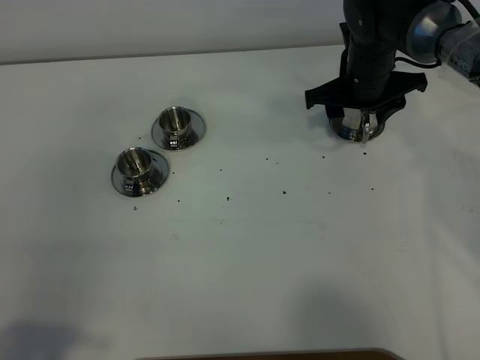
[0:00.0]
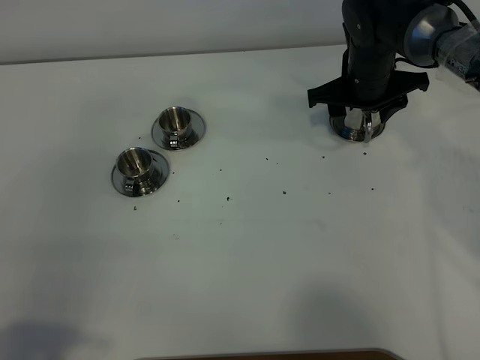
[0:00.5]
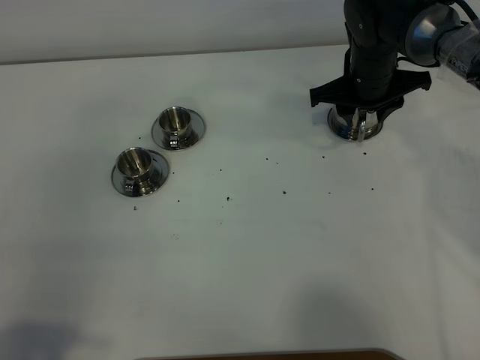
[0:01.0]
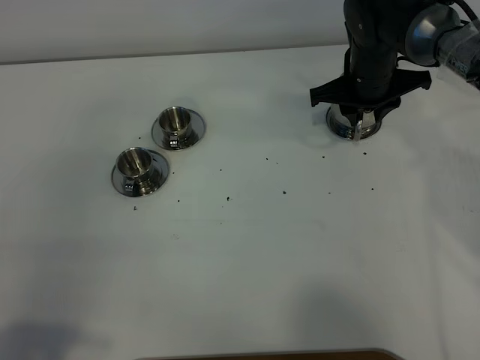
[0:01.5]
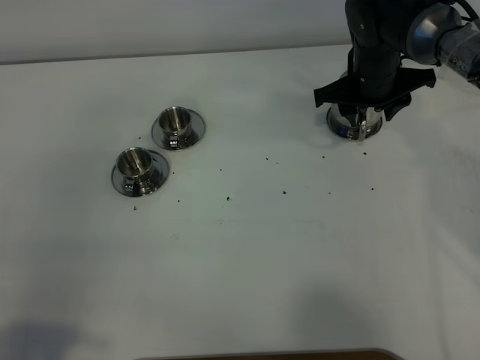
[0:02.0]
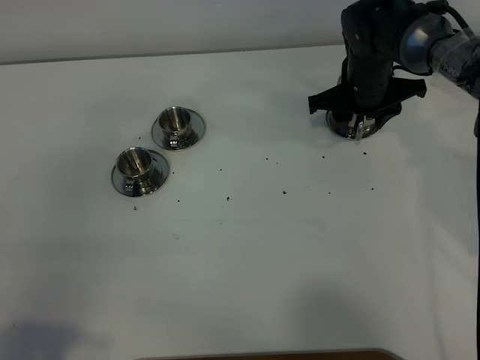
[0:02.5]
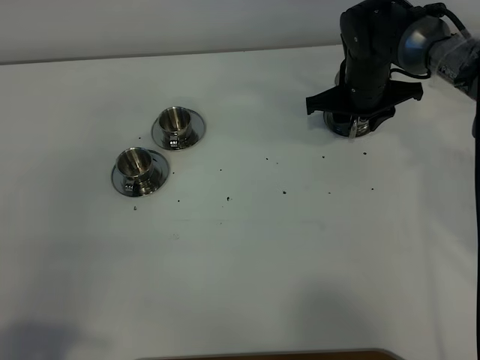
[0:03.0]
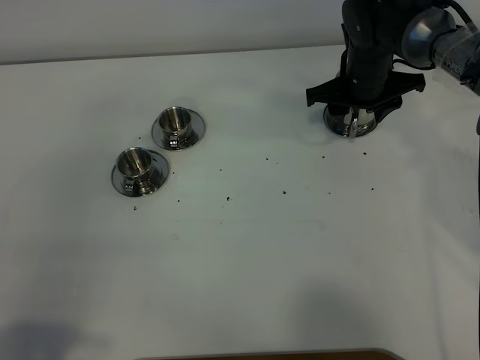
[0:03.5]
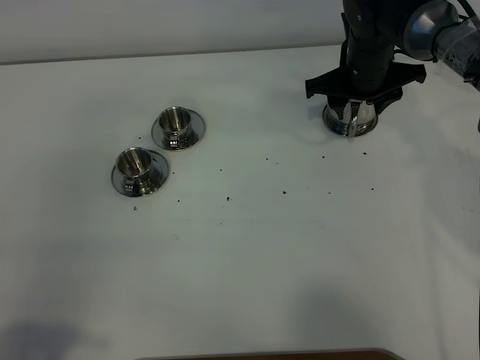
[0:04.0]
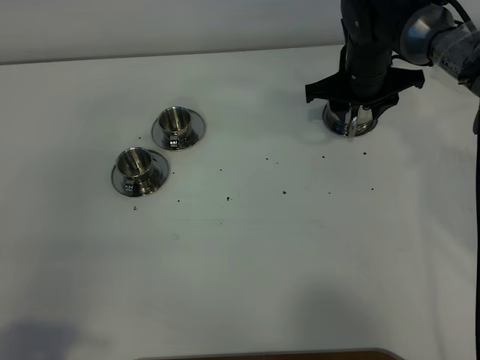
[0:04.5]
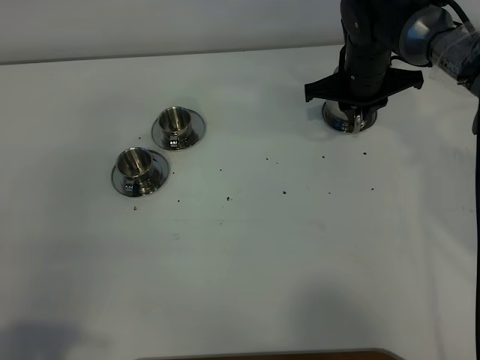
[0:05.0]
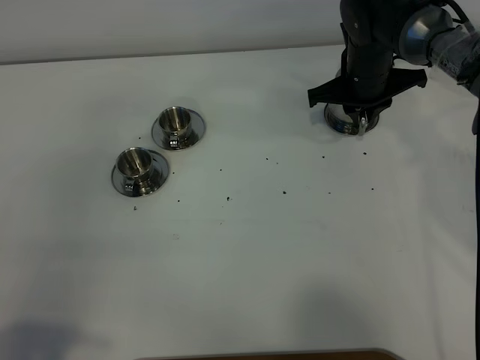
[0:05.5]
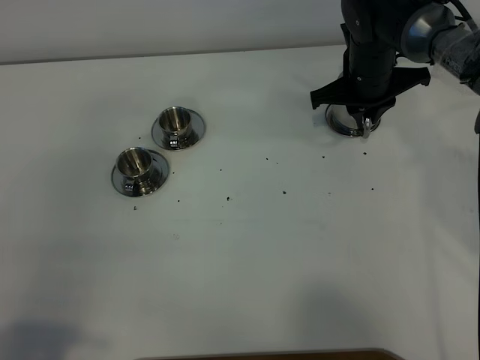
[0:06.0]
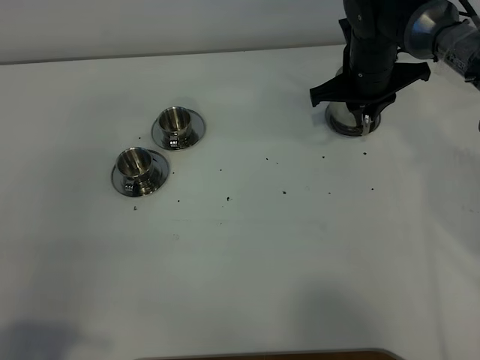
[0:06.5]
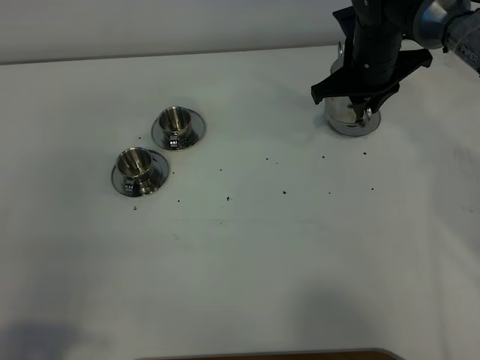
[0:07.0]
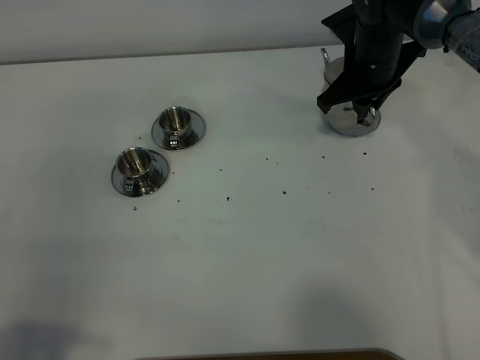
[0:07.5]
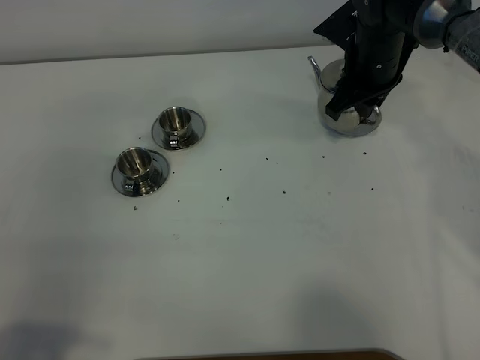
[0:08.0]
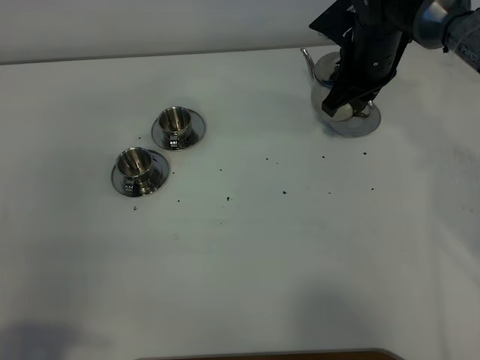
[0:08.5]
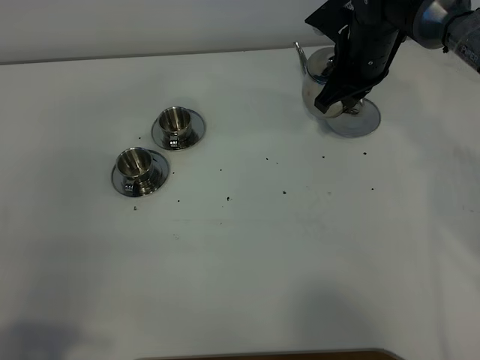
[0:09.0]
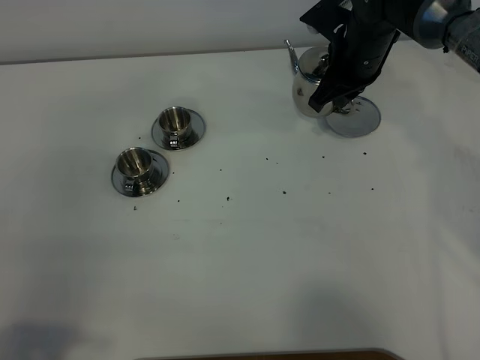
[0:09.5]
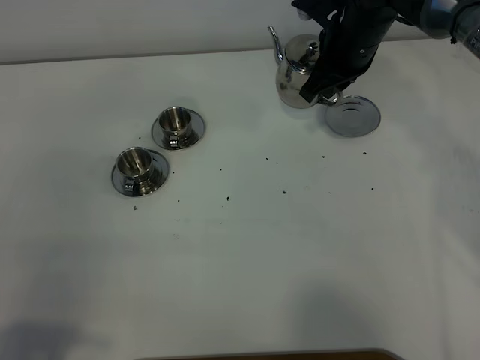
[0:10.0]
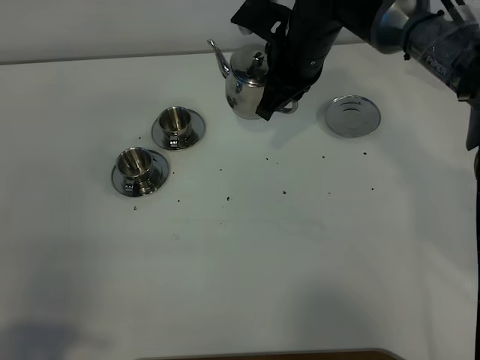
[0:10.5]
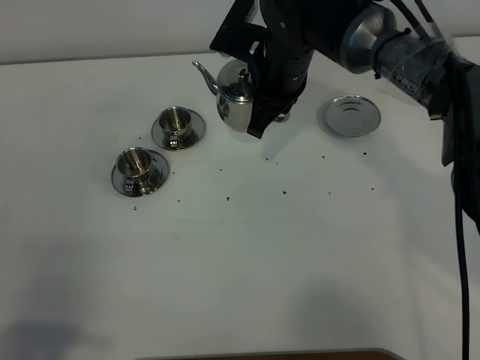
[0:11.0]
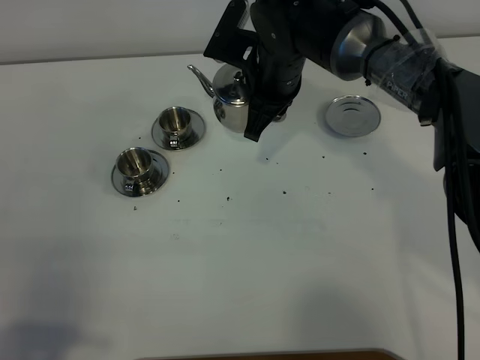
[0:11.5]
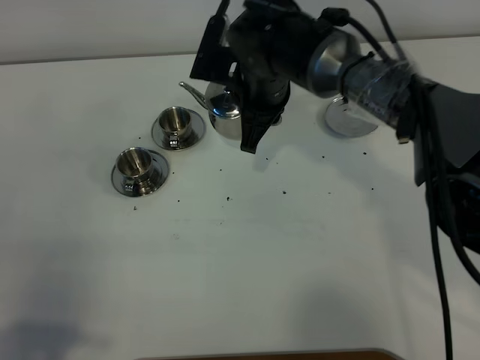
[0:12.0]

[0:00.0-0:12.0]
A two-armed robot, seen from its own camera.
Task of the whole recording: grasp the stainless steel teapot and pour the tea into the two stainless steel teacups one by one, put the stainless steel teapot back in its original place.
Step, 0.0 to 6.5 s: Pick up the teapot with the right gripper.
0.0 to 2.0 s: The right gripper closes, then opens again.
2.0 to 4.0 s: The grippers move only a little.
4.0 to 6.0 s: The right gripper closes up.
8.0 to 10.0 s: The grippers move only a little.
10.0 to 12.0 s: The right gripper travels to the left and backward by about 15 cm.

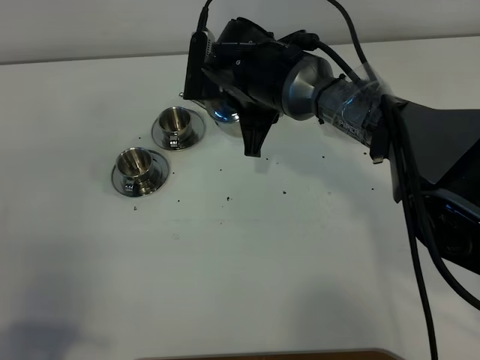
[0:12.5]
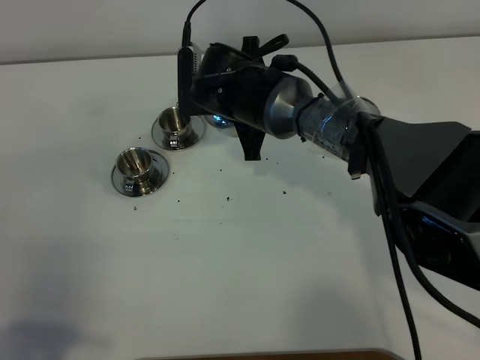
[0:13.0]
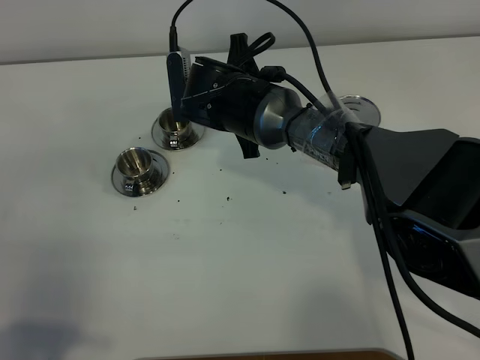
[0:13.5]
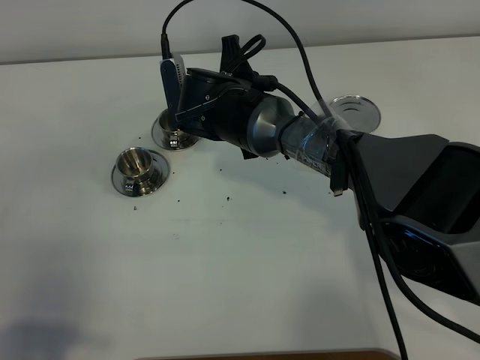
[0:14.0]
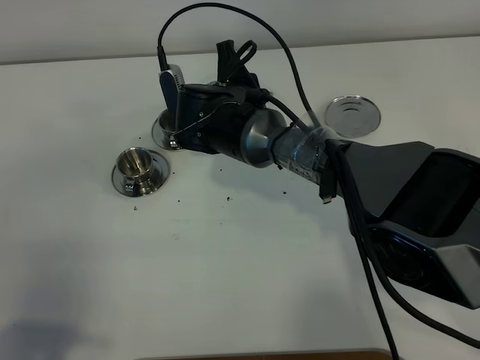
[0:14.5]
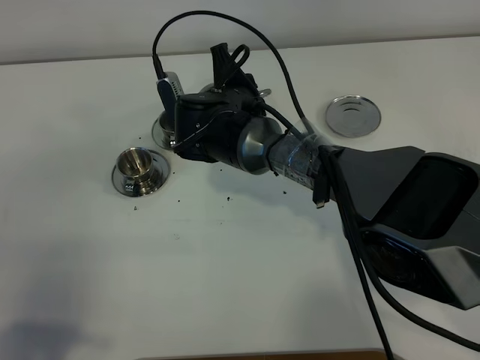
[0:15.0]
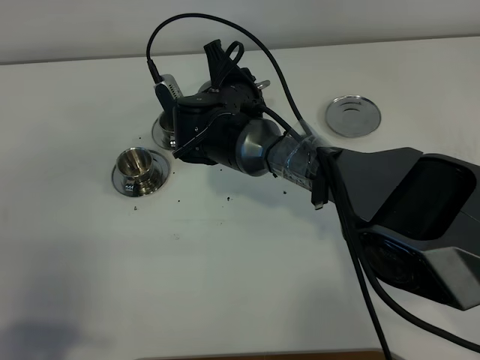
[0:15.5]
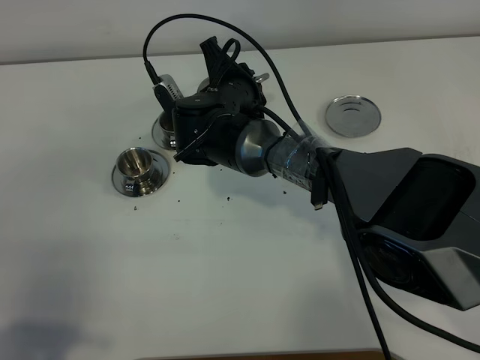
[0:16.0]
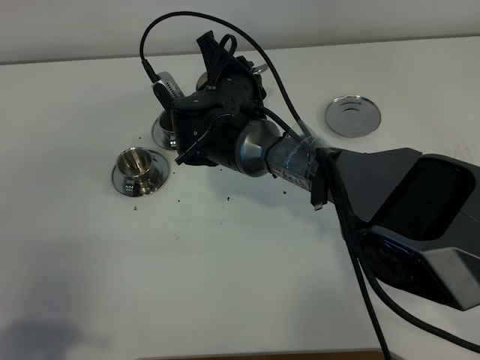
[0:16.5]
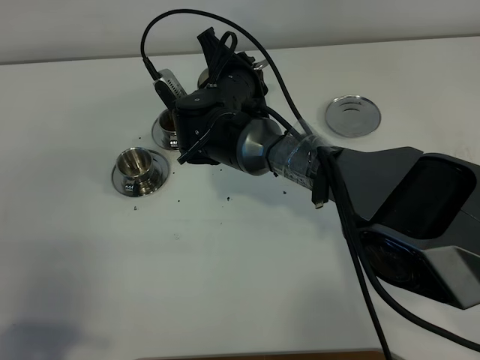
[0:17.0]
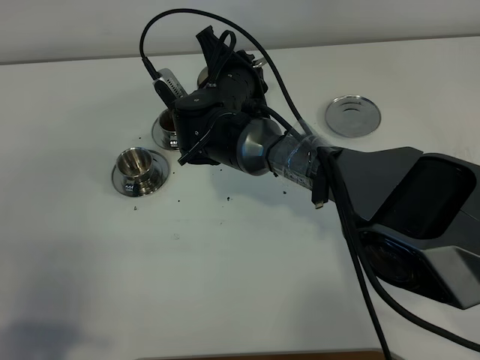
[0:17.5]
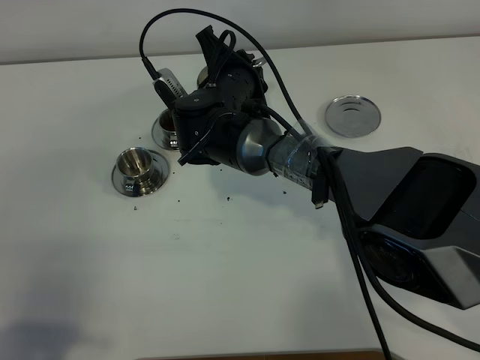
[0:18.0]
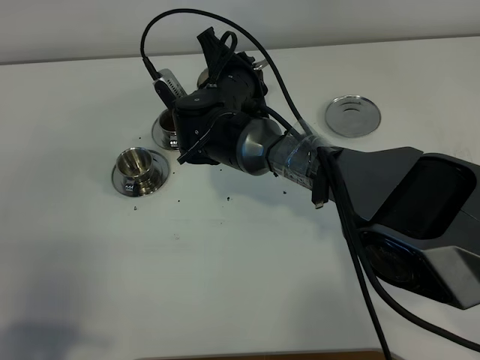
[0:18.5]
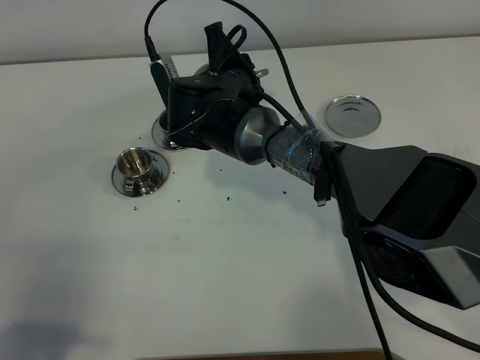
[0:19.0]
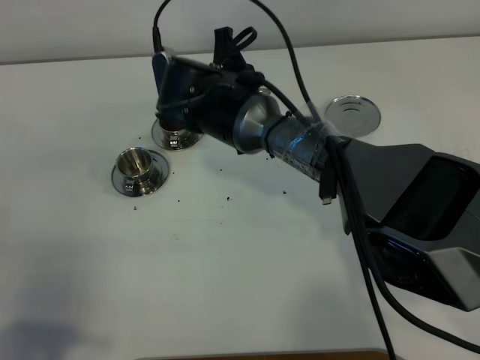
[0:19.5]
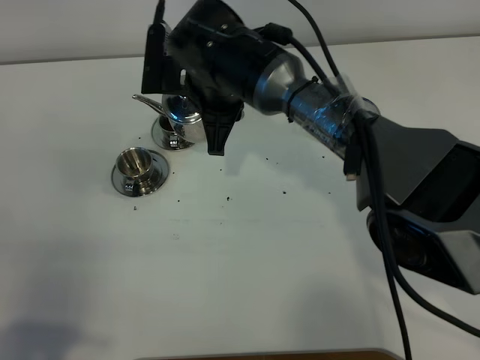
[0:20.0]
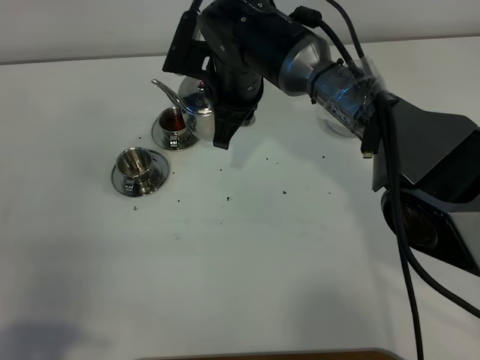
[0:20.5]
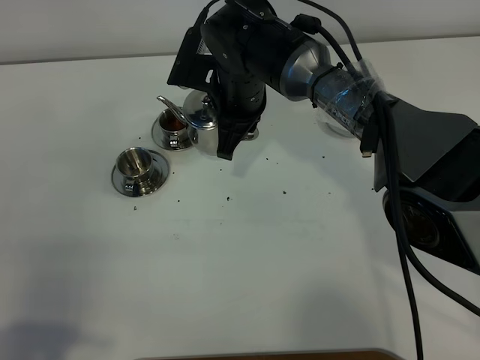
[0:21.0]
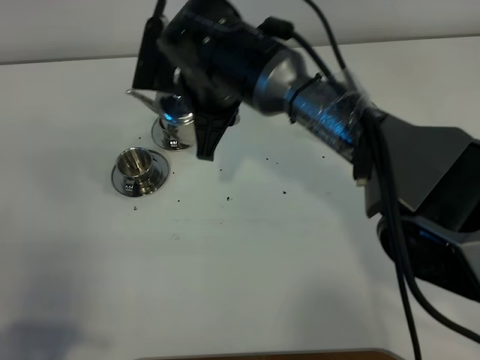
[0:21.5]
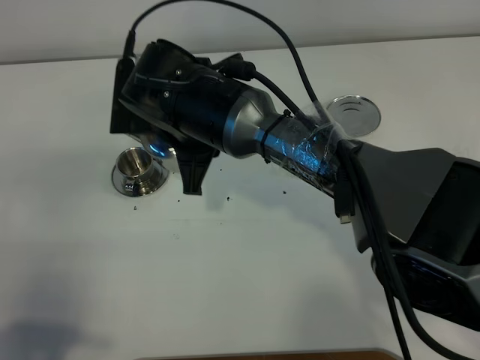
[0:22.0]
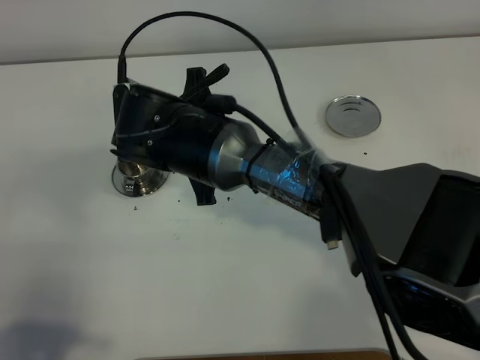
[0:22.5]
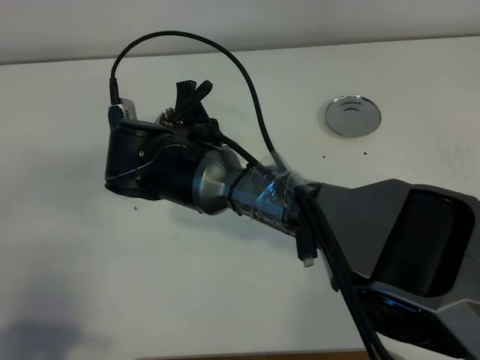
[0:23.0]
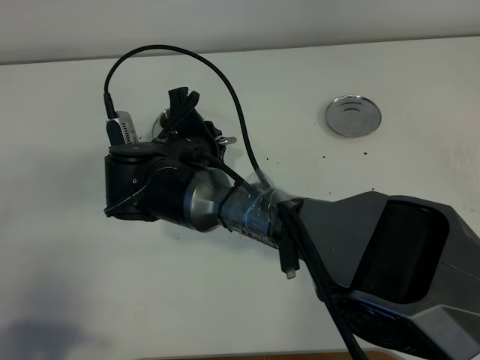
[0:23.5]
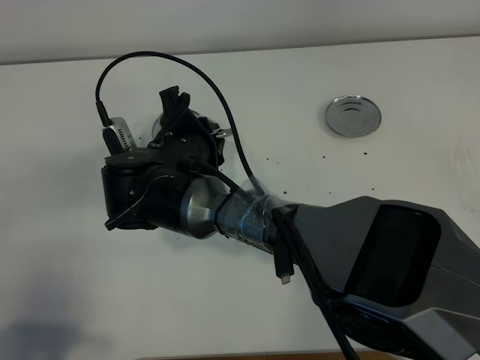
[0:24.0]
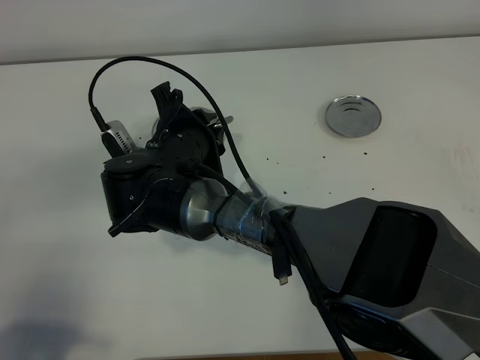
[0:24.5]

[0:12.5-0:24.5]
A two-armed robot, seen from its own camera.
Task of the whole recording: grasp the stainless steel teapot and pour the tea into the two stainless steel teacups one by one, put the stainless steel teapot back in its original place.
Step, 12.5 to 19.5 s: Pour tea into the teacup with the right gripper.
14.5 to 16.5 s: The grippers make only small movements.
16.5 to 18.5 s: Neither gripper changes place.
18.5 to 20.5 s: The right gripper moves approximately 5 cm.
20.5 to 22.5 s: The right gripper heads backward, covering some 10 cm.

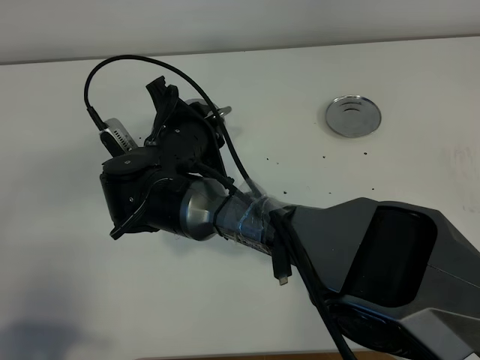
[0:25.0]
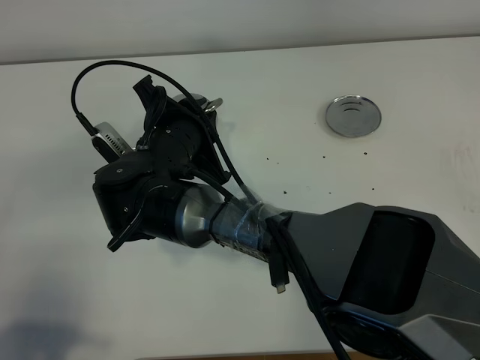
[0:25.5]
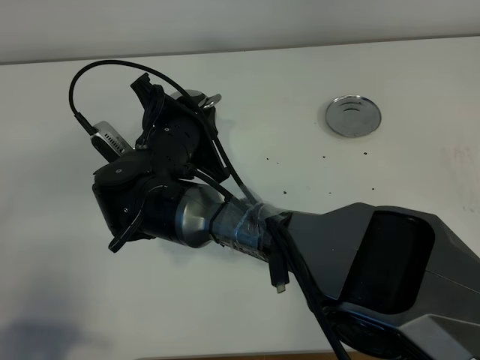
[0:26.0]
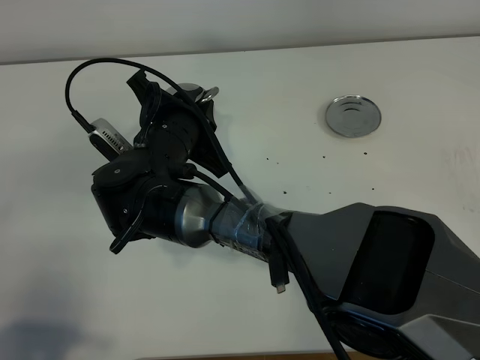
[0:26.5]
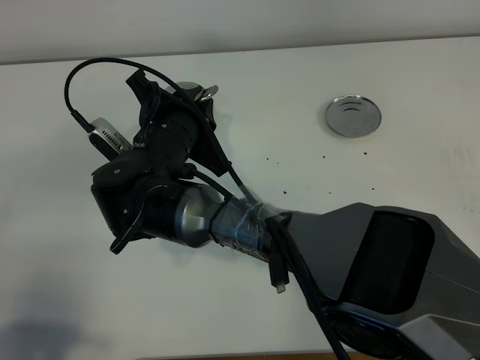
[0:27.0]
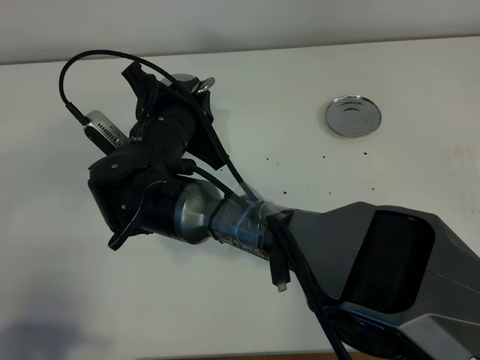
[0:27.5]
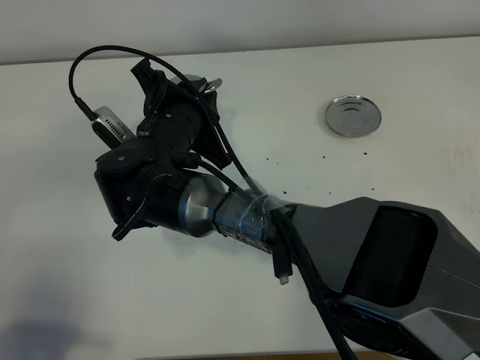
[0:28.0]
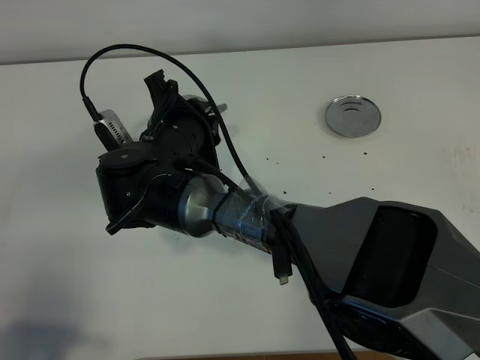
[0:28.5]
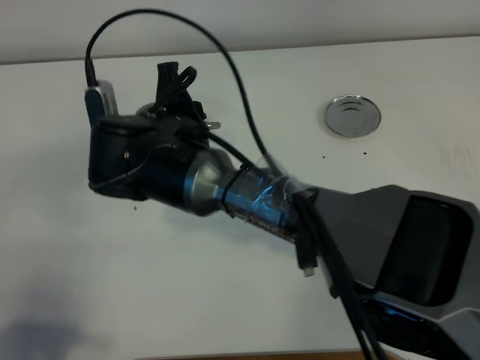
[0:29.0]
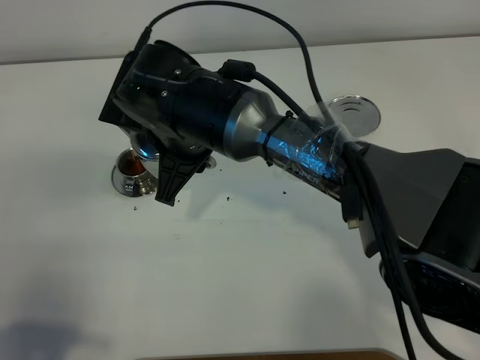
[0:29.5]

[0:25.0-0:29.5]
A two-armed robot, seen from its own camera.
Task of the whole recording: grasp the stainless steel teapot and pour the tea into the two stainless steel teacups one by one, put the stainless steel teapot back in its original place.
Step, 25.0 to 29.0 s: Pour tea into the teacup with the right gripper.
25.0 to 27.0 s: The grippers move only a little.
27.0 to 29.5 s: The right gripper ends up about 5 cm from where it was.
